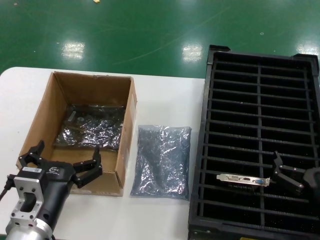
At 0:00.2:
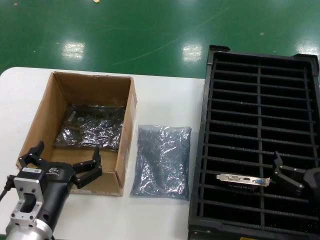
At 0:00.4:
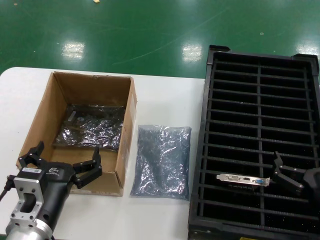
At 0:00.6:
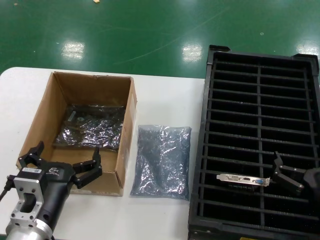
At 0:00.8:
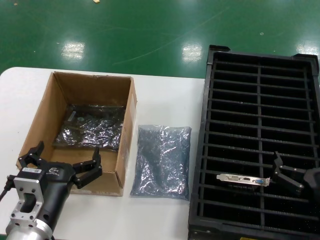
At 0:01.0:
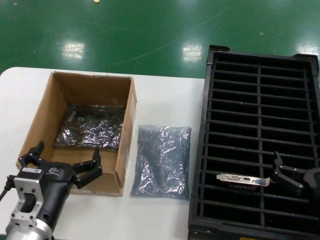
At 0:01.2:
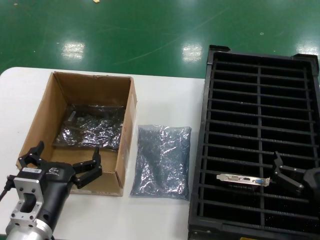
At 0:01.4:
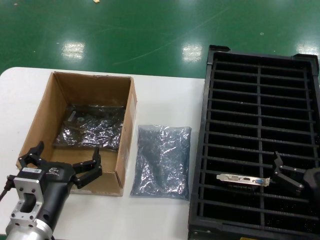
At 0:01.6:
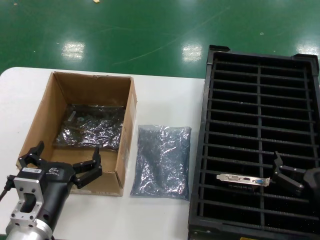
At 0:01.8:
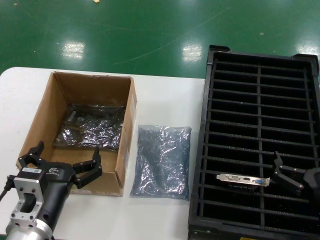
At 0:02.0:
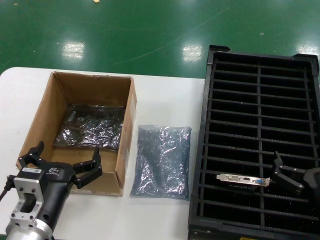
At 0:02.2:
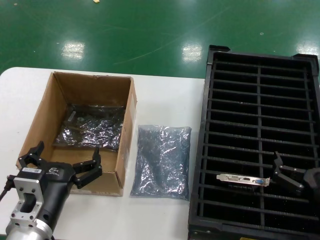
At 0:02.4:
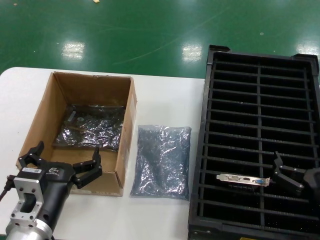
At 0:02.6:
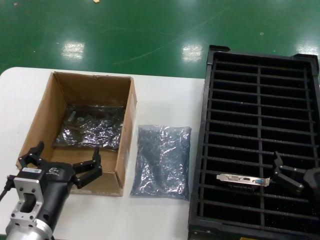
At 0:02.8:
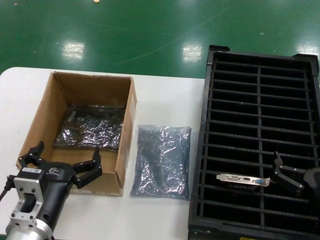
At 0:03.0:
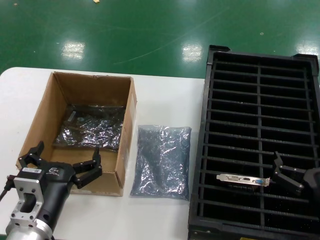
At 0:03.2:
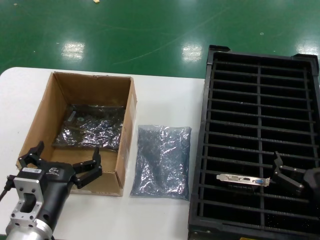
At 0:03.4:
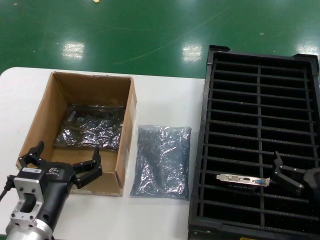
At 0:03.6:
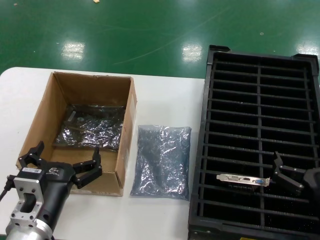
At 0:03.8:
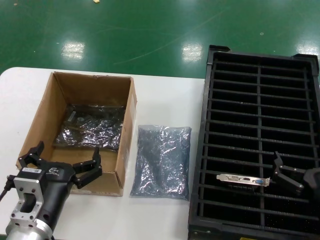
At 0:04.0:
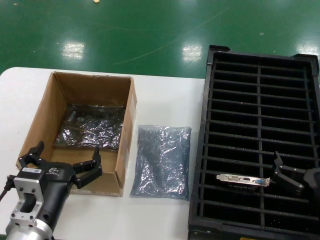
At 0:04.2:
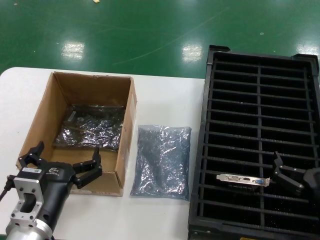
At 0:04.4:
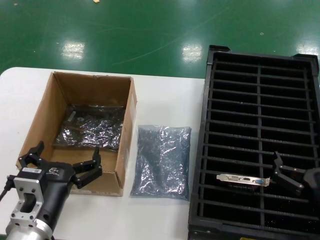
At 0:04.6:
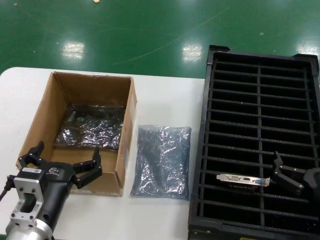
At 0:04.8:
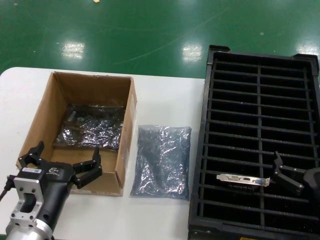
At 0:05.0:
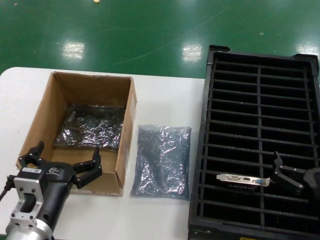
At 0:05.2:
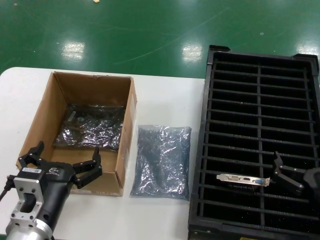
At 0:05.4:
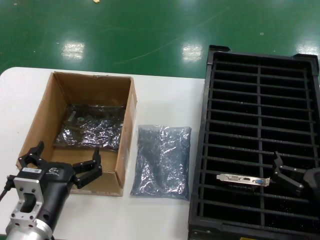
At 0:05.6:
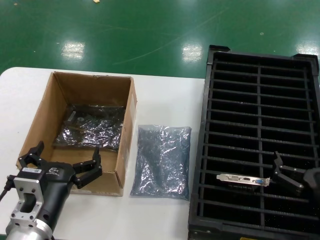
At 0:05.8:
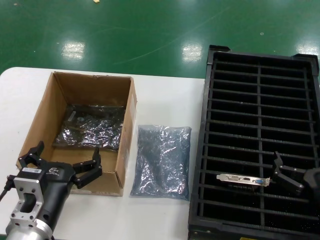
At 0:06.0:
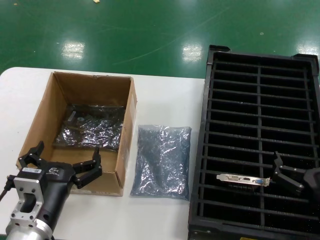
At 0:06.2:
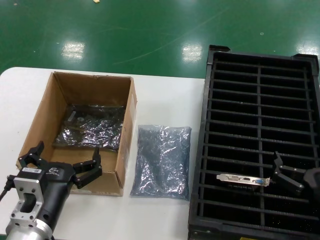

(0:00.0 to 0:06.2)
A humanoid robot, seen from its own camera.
Task of the whole recording: take out graphics card from box remove packaging put into black container.
0:00.0 - 0:06.2: The two hands keep their place.
